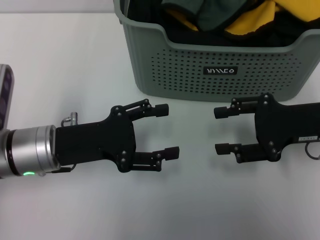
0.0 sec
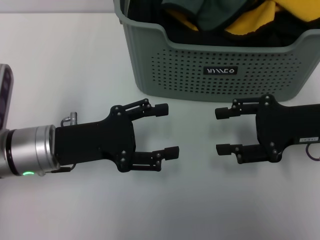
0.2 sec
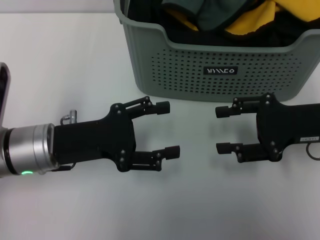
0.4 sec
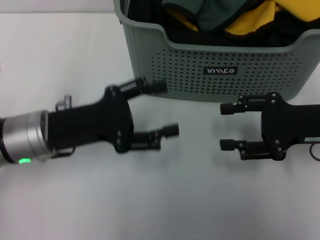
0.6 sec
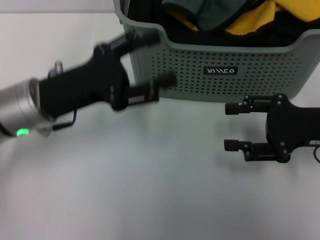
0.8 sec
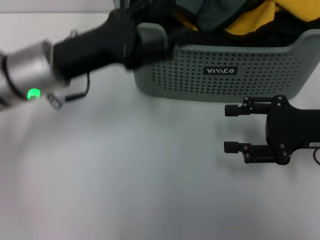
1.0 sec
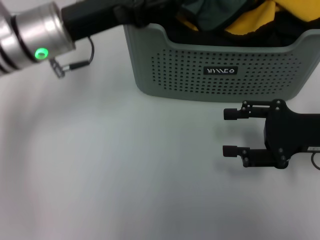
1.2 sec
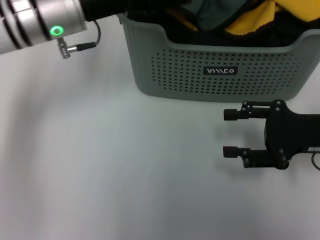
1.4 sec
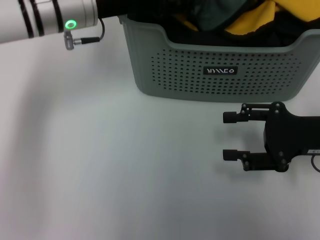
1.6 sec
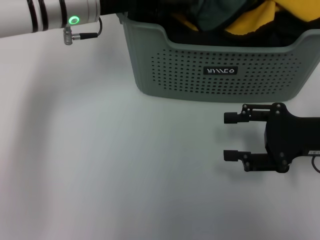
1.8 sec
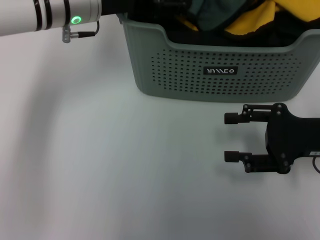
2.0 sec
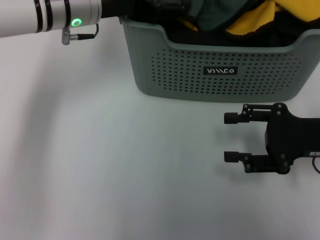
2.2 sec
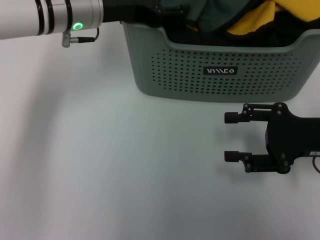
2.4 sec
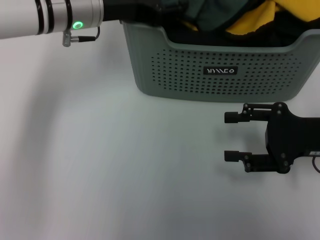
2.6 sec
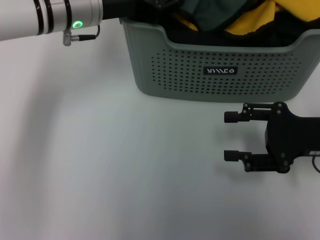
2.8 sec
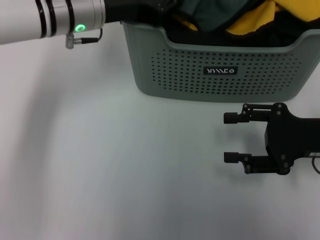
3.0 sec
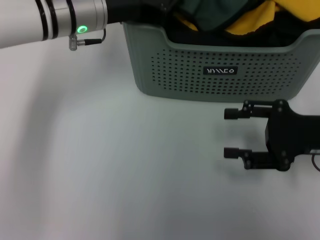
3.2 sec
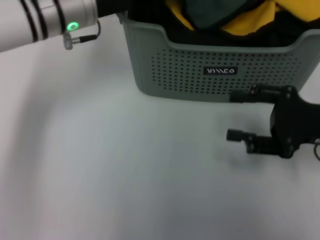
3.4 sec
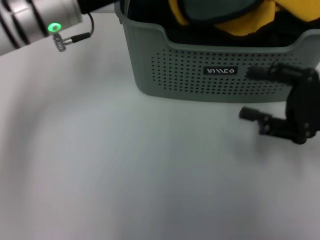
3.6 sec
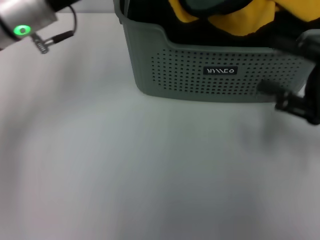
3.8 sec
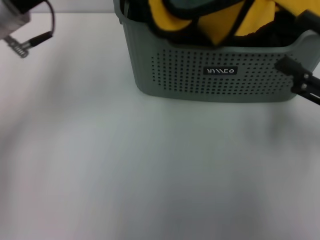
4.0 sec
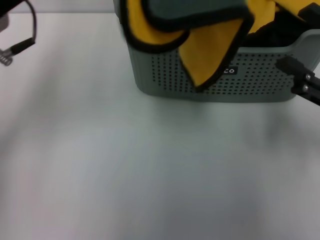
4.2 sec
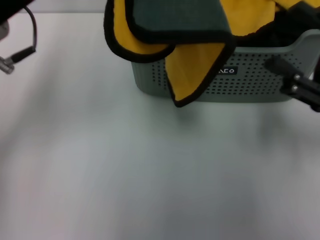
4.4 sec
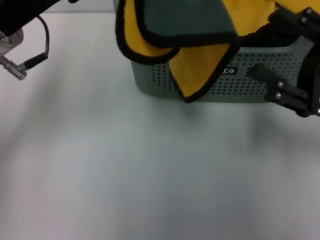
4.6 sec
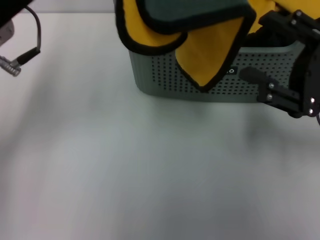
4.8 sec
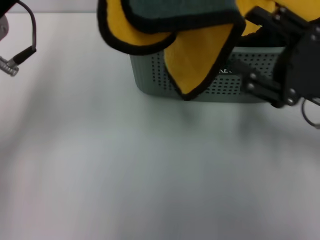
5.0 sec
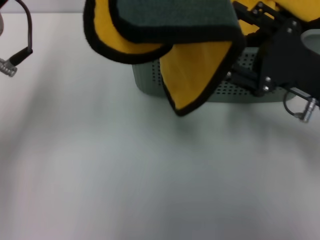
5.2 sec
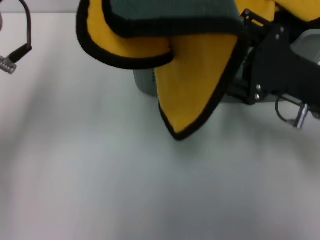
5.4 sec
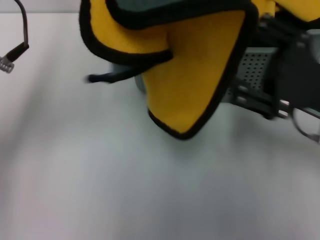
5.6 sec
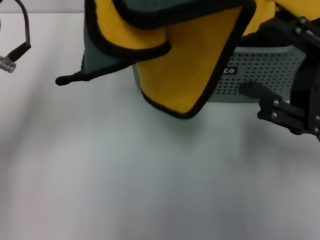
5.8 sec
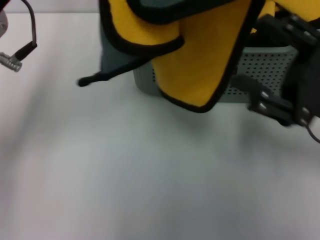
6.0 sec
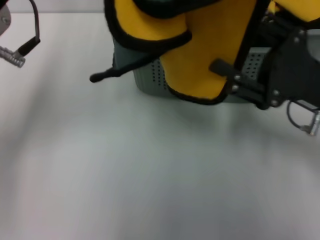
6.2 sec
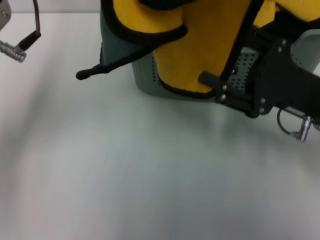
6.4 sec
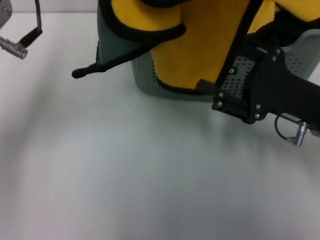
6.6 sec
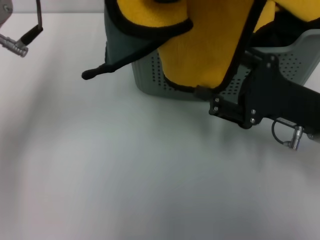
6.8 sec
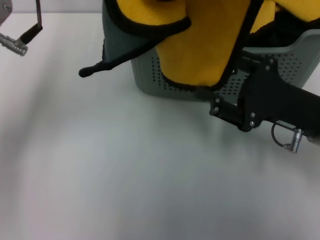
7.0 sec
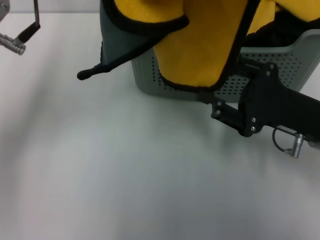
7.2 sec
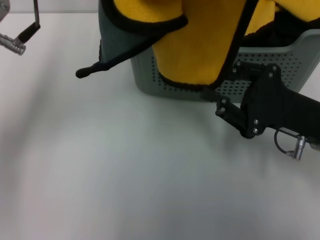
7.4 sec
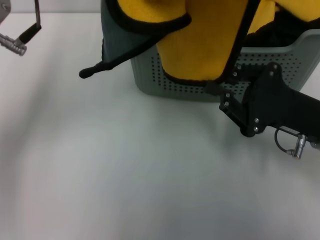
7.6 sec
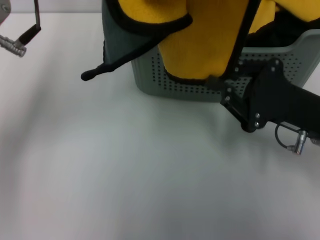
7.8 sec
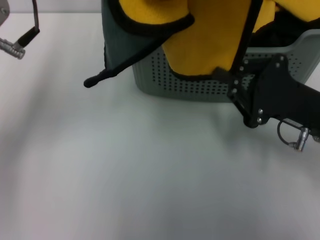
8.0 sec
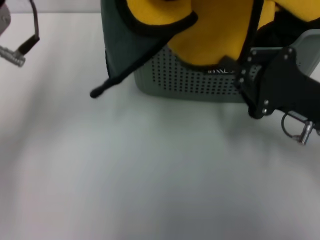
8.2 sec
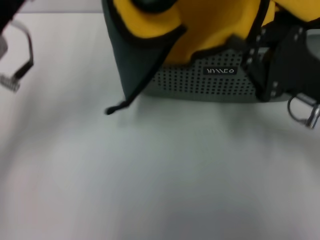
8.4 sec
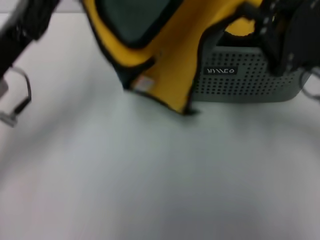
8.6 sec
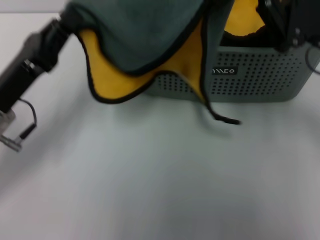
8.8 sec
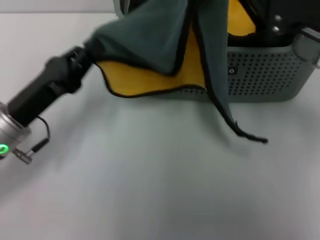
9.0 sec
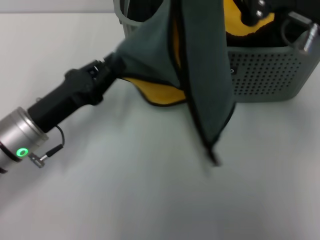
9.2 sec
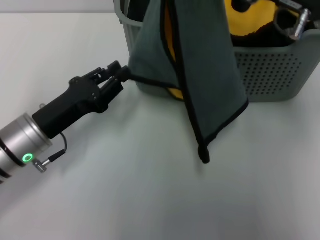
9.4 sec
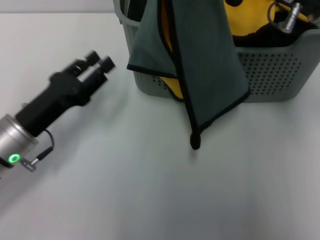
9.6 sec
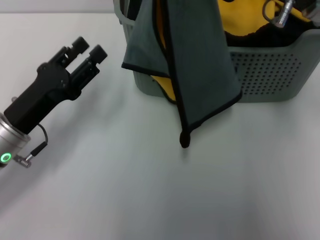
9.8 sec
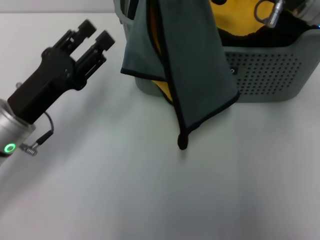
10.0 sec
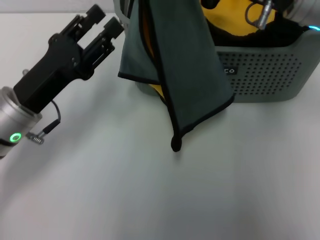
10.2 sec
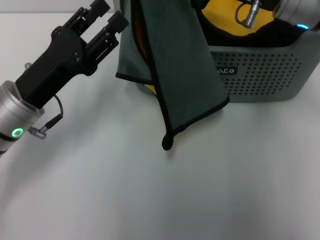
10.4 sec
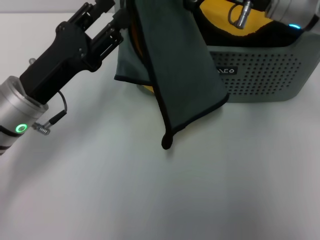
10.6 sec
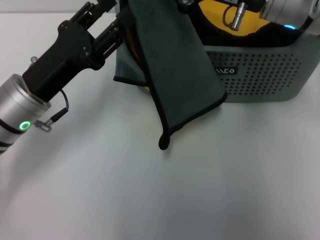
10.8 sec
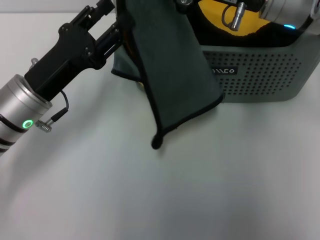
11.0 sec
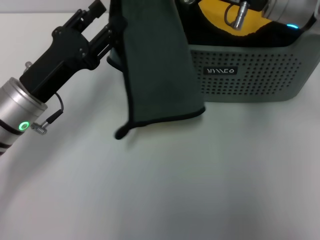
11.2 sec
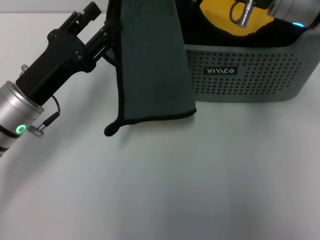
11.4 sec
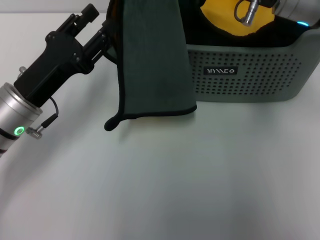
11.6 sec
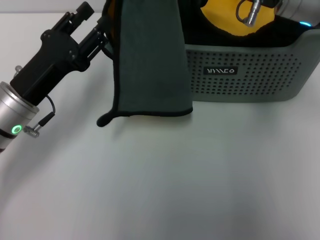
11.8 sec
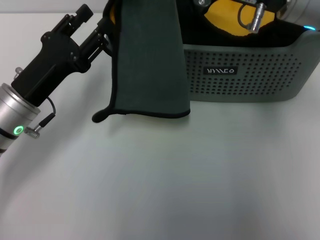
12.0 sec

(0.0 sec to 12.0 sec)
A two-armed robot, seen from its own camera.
Task of the whole recording: pick up the towel from the storage box and lay it flat on the table.
Step, 0.0 sec - 3.2 sec: Pick up a towel with the left gripper.
Step, 3.6 sec - 7.8 sec: Spread the towel flat with the left gripper.
0.0 sec - 1.6 sec: The left gripper shifts roughly 15 cm forward and upward.
1.6 sec - 3.0 sec: The left gripper closes up.
3.0 sec - 4.4 sec: The left gripper heads backward and to the left, covering approximately 15 cm.
4.4 sec - 6.0 sec: The grippers stay close to where they were, moving slightly.
7.6 sec - 9.0 sec: The left gripper heads downward, covering some 15 cm. The right gripper travels upward by roughly 10 cm, and closes its fingers.
9.0 sec - 10.4 sec: The right gripper is displaced to the left by approximately 5 cm. The left gripper opens up.
10.4 sec - 12.0 sec: The grippers make only small movements.

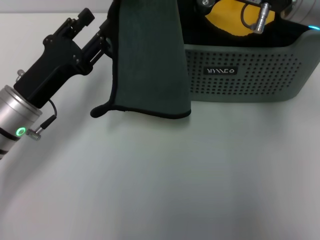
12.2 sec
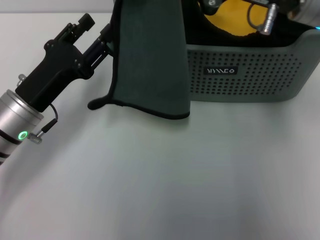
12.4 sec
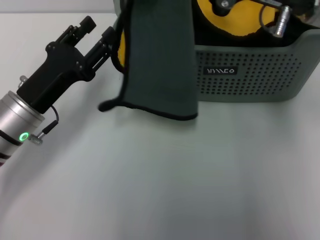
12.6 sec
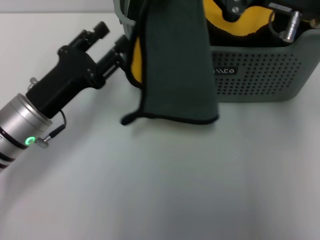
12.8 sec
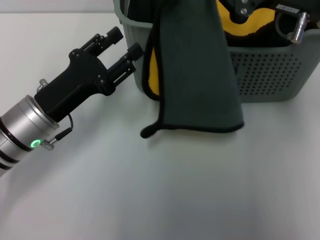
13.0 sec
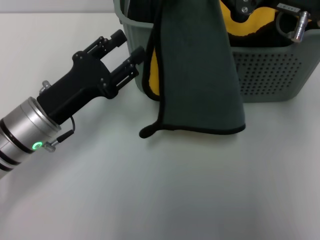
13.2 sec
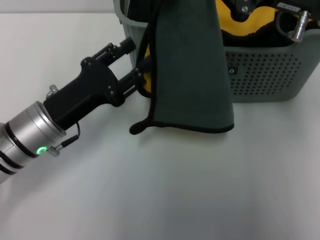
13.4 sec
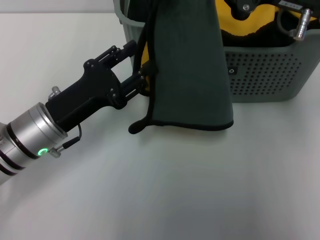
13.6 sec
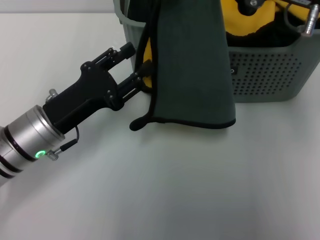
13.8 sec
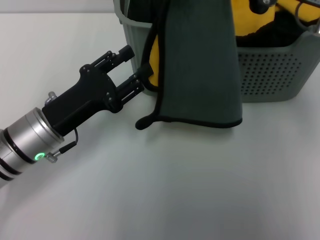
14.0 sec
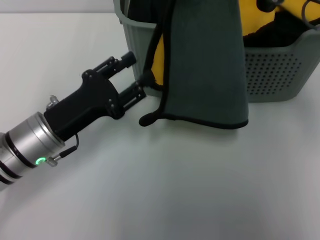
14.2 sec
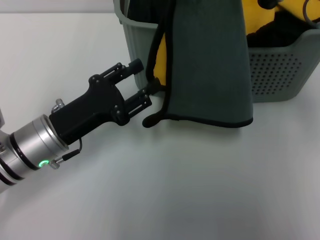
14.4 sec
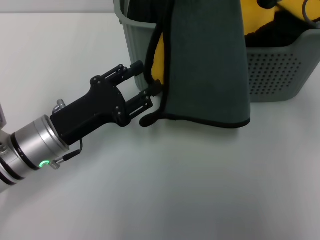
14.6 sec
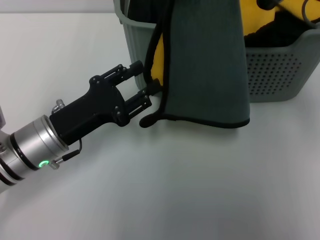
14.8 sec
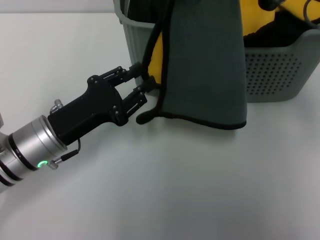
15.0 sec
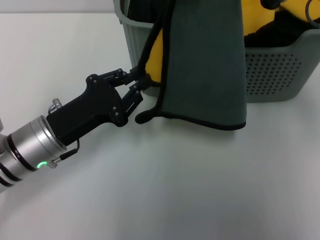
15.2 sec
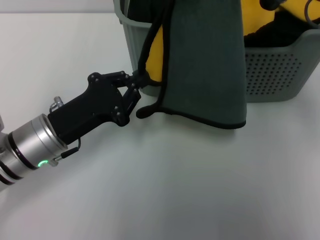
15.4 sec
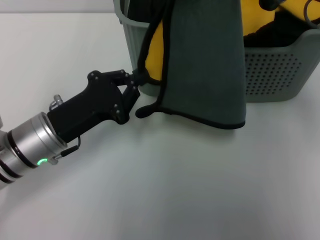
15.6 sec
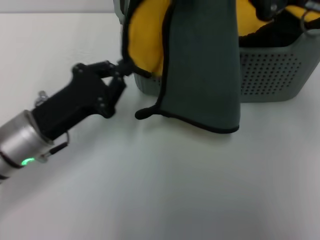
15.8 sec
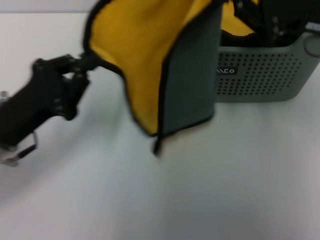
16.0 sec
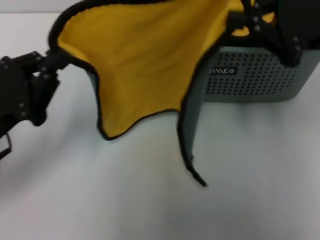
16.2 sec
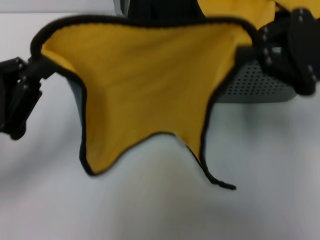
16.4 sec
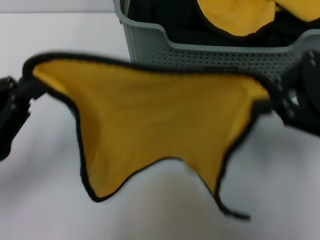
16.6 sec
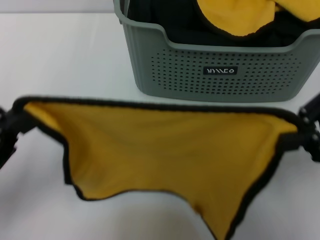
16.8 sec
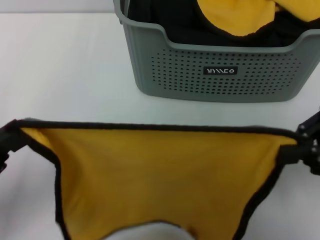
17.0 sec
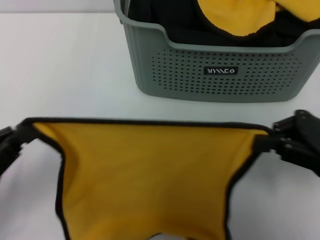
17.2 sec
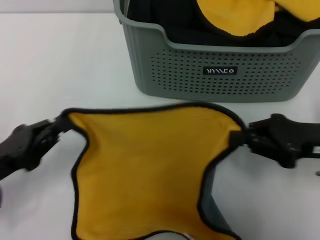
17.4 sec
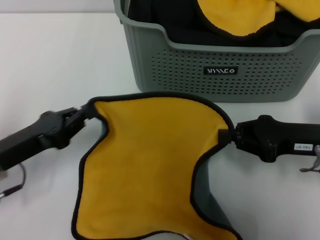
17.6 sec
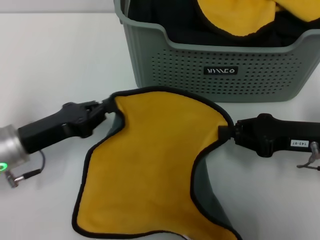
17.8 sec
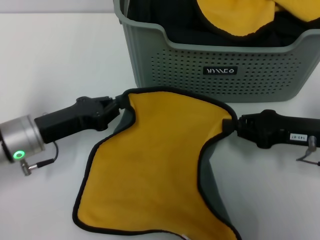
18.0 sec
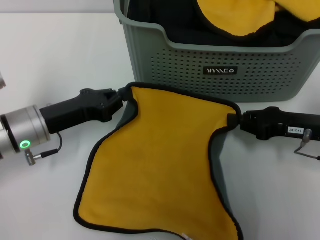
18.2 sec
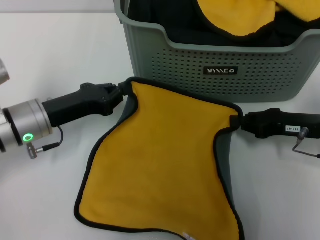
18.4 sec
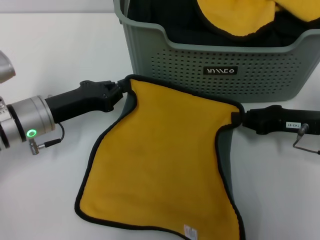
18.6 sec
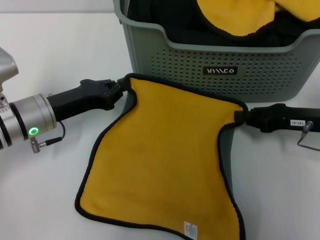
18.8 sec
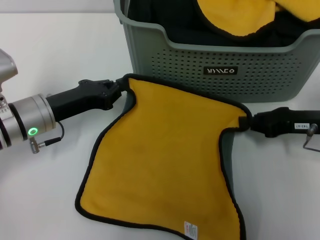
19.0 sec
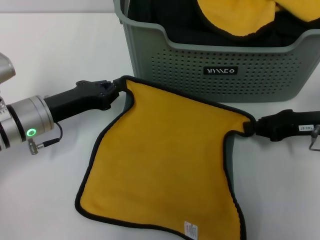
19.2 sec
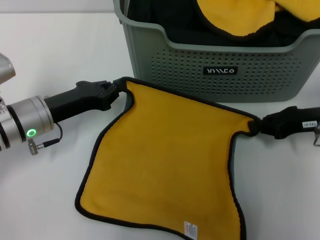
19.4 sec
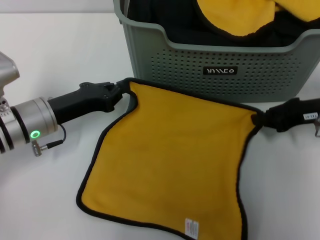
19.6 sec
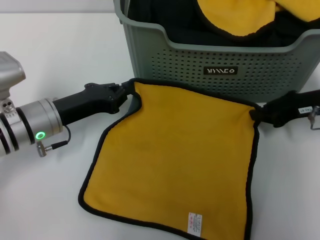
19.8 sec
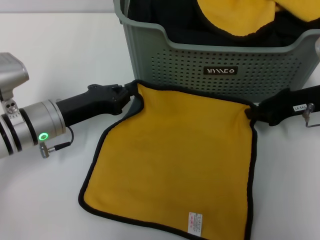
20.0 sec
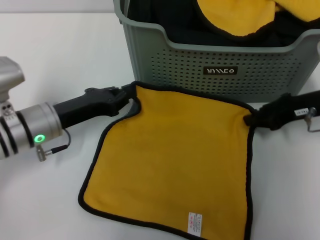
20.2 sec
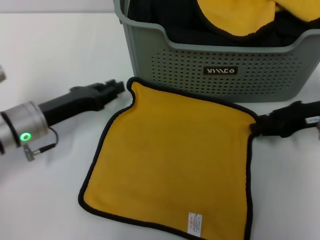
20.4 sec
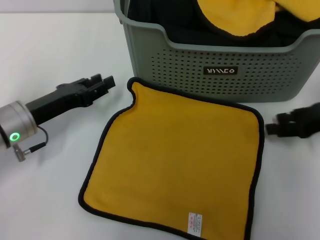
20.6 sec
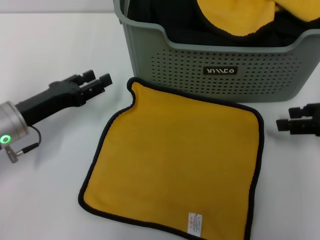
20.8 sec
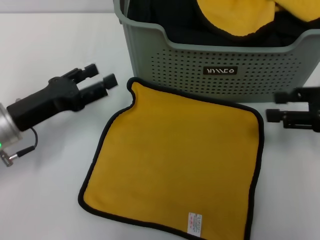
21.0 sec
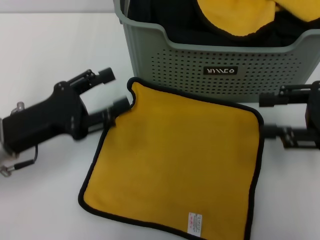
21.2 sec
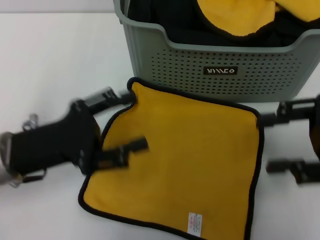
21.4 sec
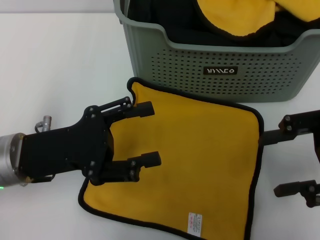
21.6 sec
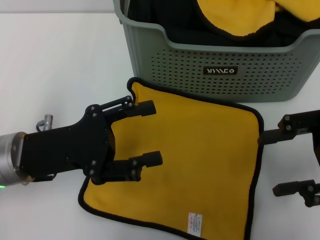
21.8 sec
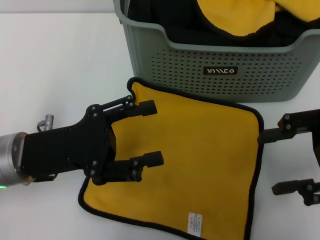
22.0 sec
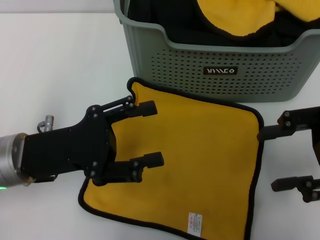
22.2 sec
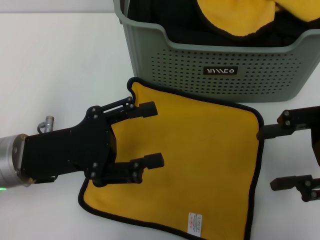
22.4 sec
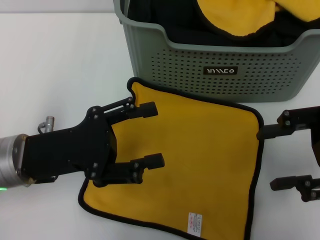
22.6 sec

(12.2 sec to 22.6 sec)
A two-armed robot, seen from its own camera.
Task of the whole recording: pick up the towel from the storage box and lay it flat on the table.
Step, 12.2 sec - 20.4 sec: Spread the towel flat with the right gripper.
13.6 sec - 15.2 sec: The left gripper closes up.
15.2 sec - 16.6 sec: The right gripper shifts roughly 5 cm backward; the left gripper heads to the left, backward and upward, covering about 10 cm.
16.6 sec - 18.2 sec: The left gripper moves forward, downward and to the right, roughly 15 cm, while the right gripper shifts roughly 15 cm downward.
18.2 sec - 19.6 sec: The right gripper shifts by roughly 5 cm.
19.6 sec - 21.2 sec: The left gripper moves backward, approximately 5 cm, and opens its fingers, while the right gripper moves backward and upward, some 10 cm, and opens.
